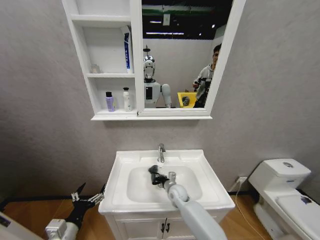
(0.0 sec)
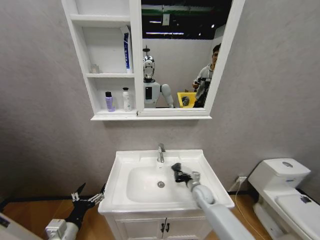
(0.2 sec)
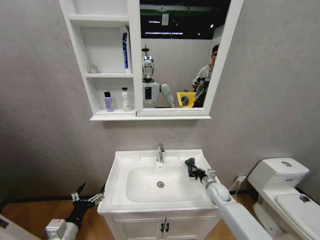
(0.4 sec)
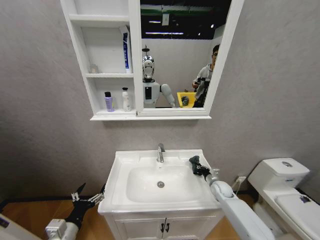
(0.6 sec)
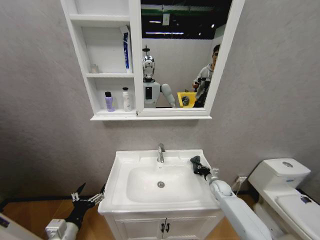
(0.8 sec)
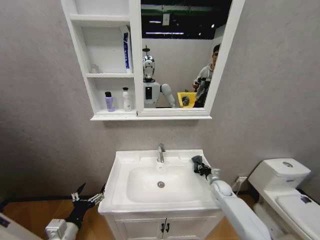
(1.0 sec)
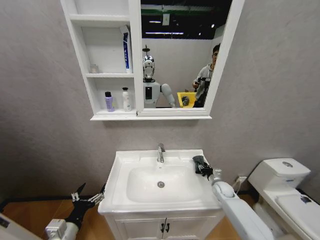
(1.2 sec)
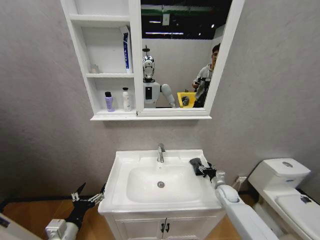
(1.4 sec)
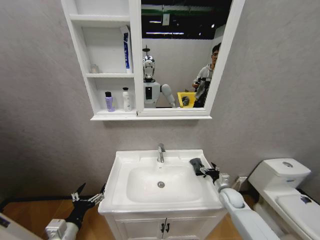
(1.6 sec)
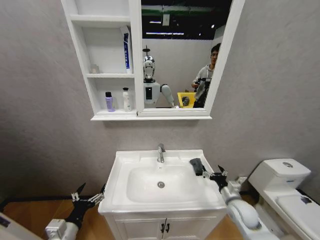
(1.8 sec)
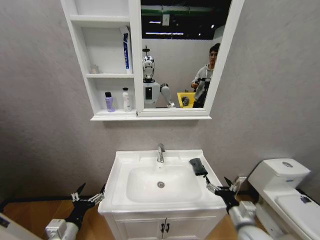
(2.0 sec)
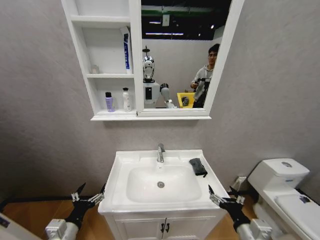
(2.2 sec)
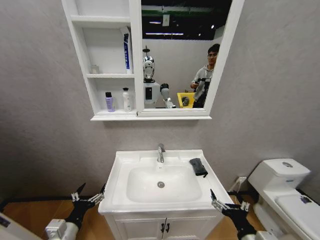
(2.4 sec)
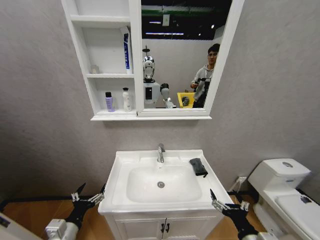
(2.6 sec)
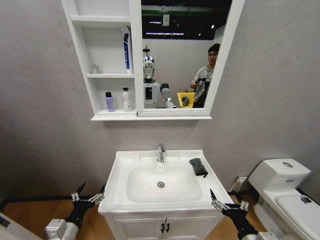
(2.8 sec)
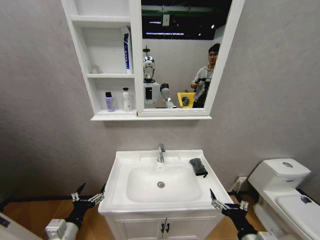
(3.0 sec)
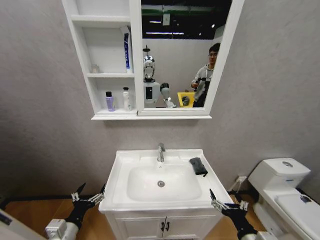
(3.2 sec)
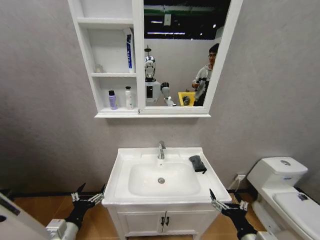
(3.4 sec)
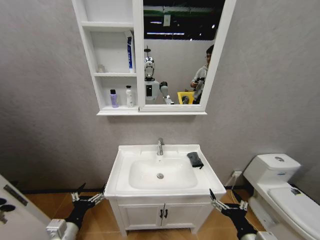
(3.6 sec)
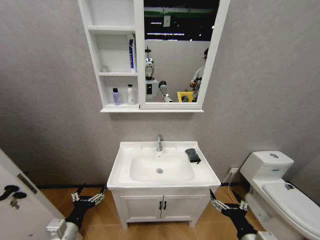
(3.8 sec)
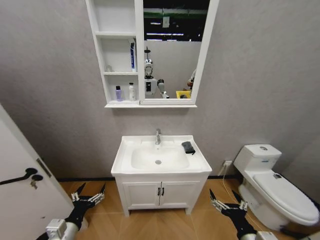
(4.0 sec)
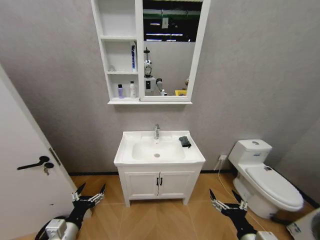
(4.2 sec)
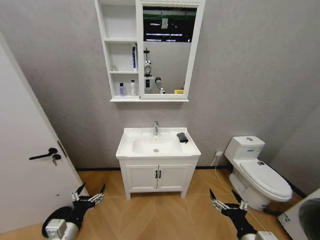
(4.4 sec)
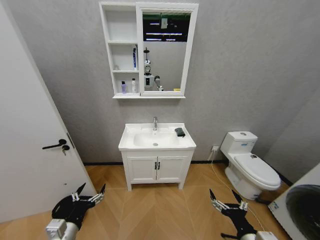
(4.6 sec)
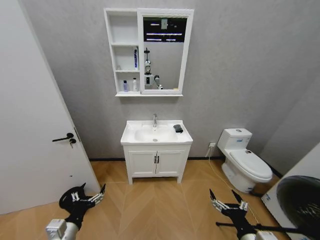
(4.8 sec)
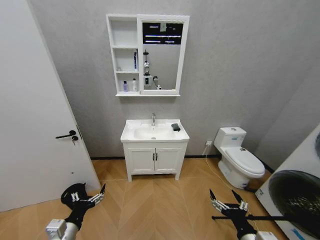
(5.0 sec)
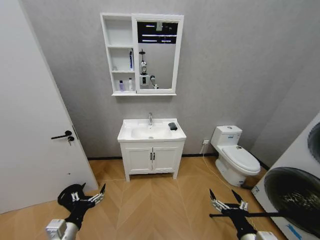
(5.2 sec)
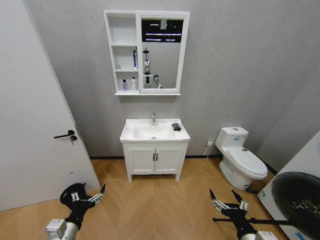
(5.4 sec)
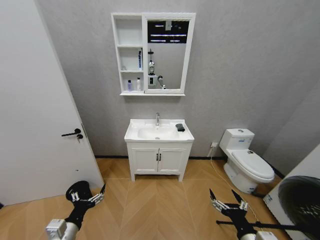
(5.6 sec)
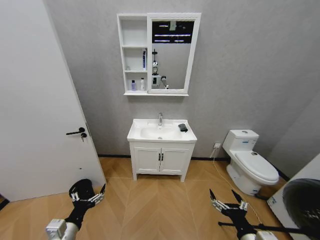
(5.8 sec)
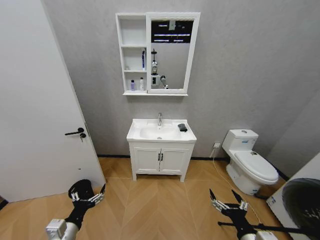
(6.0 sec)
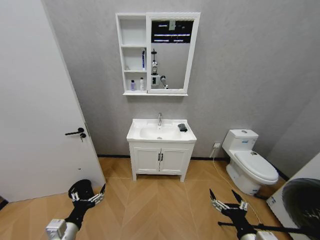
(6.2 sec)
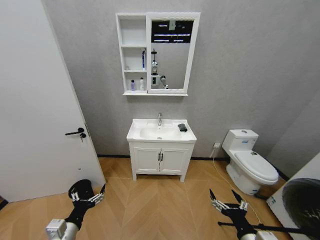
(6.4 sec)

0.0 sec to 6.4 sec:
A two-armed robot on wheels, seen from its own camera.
Task of the whole recording: Move facial cleanser and shampoo from washbasin to cabinet, then wipe washbasin with towel.
0.0 sec to 1.6 sec: The right gripper shifts roughly 25 cm to the right, and opens up.
1.6 sec to 3.2 sec: The right gripper heads backward, covering some 25 cm.
4.8 sec to 6.4 sec: Neither gripper changes place.
